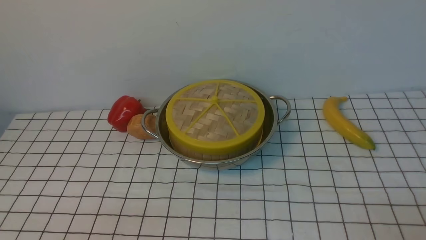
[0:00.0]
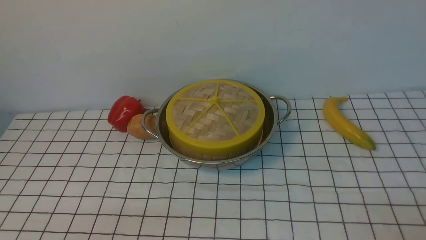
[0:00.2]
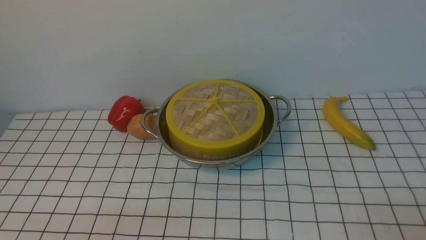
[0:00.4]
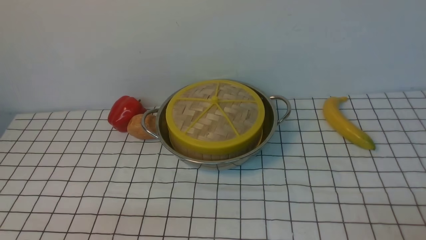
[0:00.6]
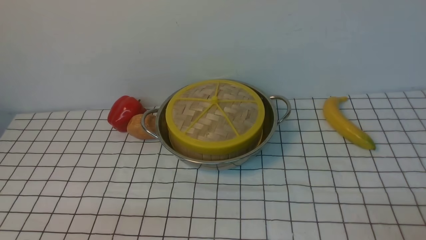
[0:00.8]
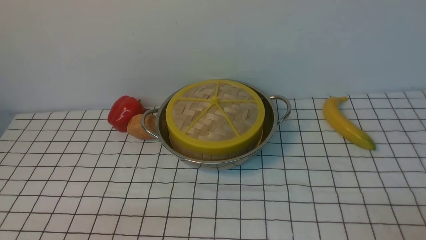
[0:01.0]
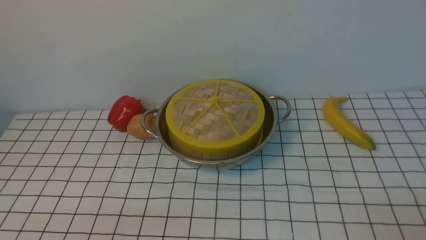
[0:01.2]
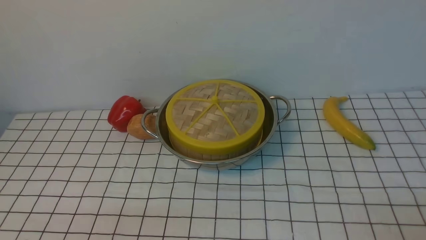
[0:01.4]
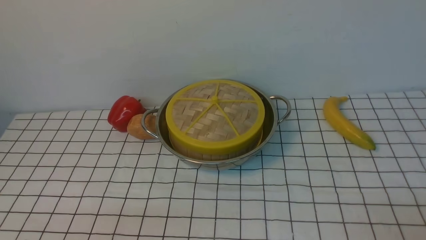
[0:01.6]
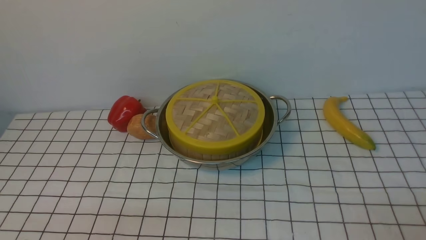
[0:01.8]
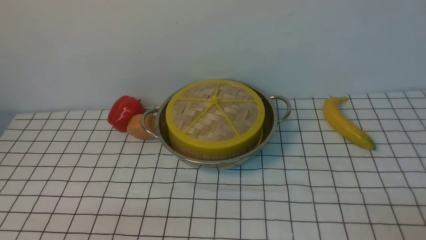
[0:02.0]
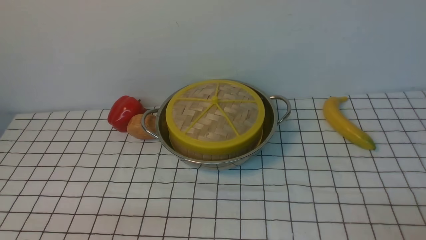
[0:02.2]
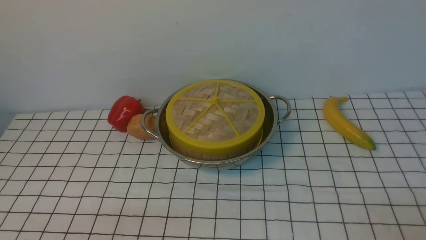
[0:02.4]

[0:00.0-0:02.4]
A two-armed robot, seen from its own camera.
Task of the whole recording: place the steamer in the pot on the white tablecloth, and put the lid on the steamer.
0:01.2 to 0:02.4: Both grippers stay put.
